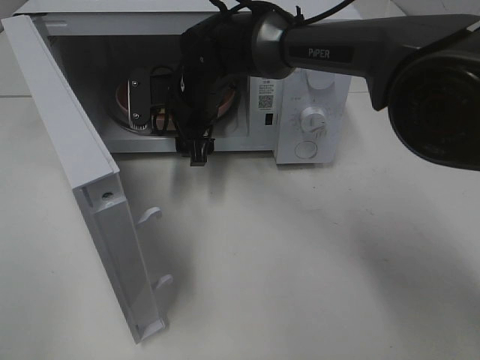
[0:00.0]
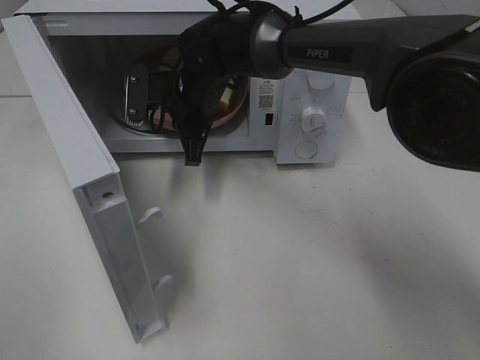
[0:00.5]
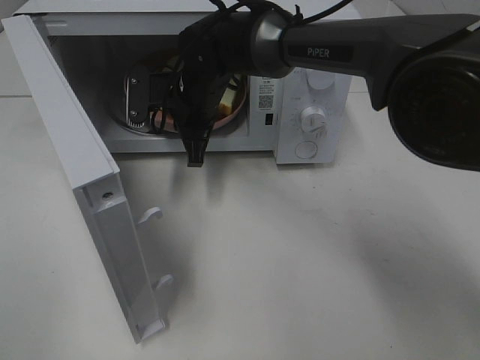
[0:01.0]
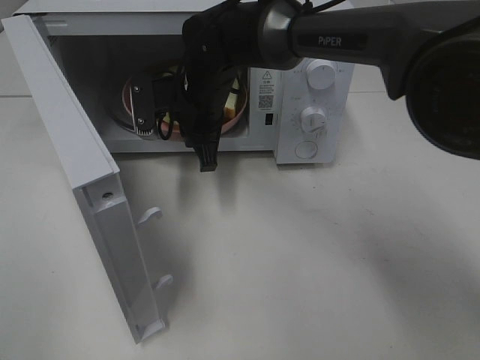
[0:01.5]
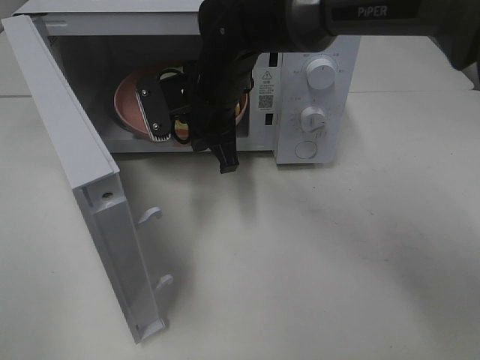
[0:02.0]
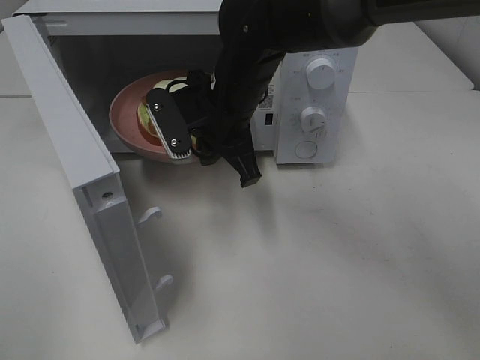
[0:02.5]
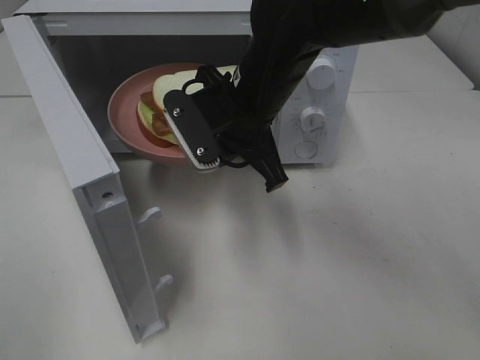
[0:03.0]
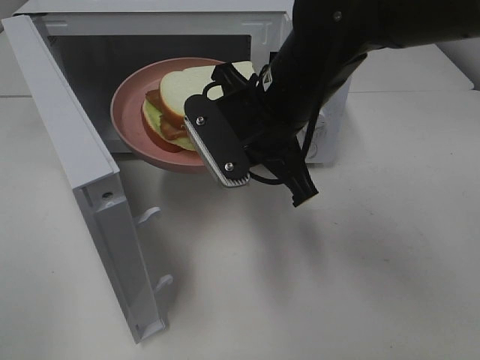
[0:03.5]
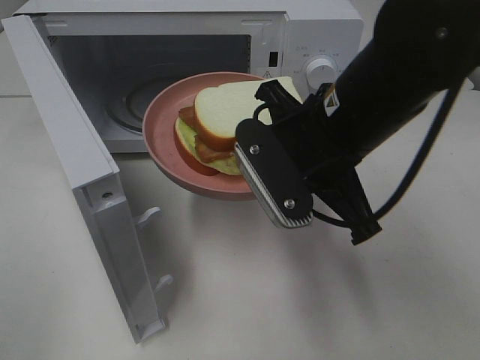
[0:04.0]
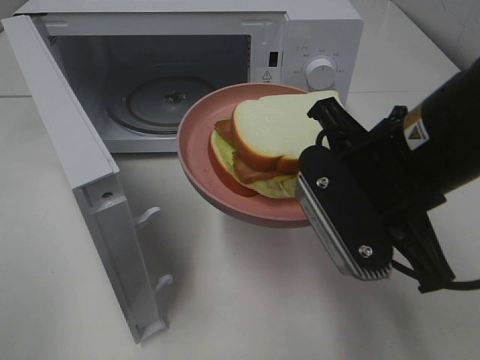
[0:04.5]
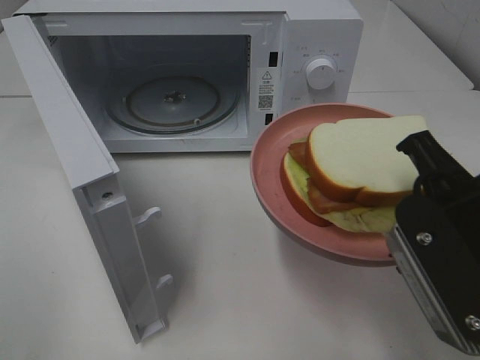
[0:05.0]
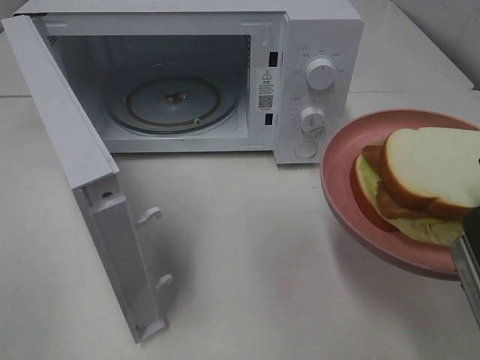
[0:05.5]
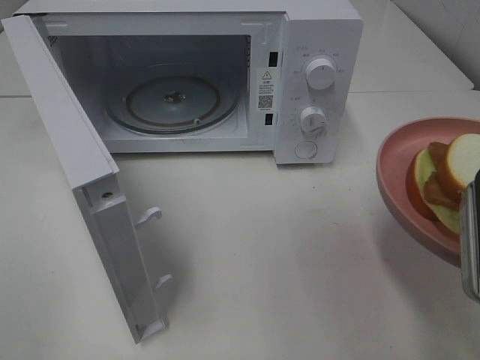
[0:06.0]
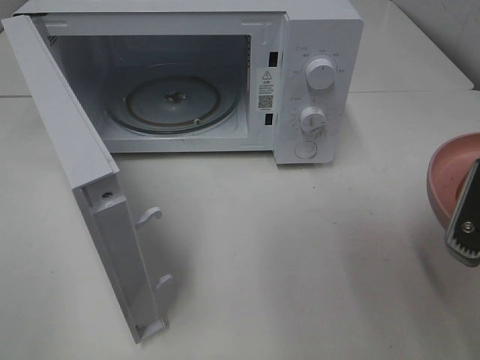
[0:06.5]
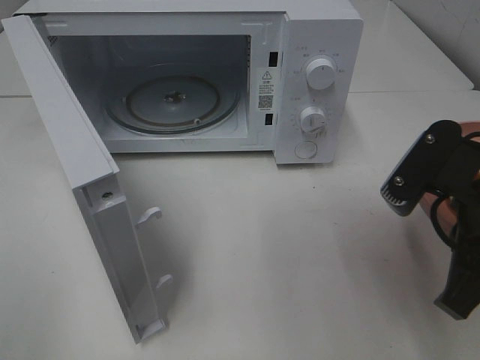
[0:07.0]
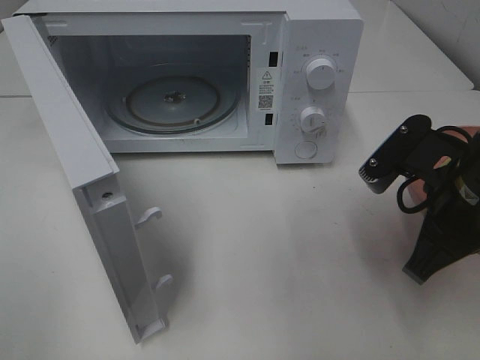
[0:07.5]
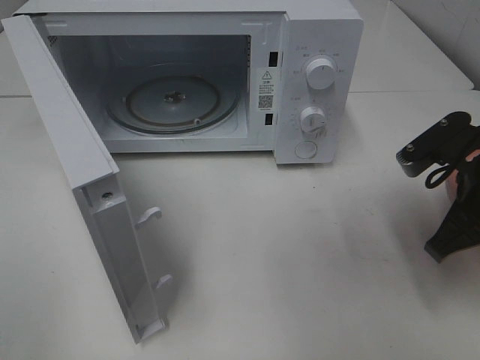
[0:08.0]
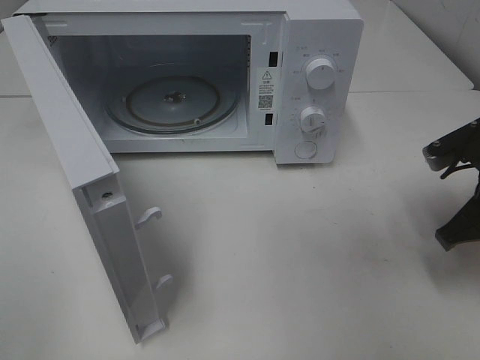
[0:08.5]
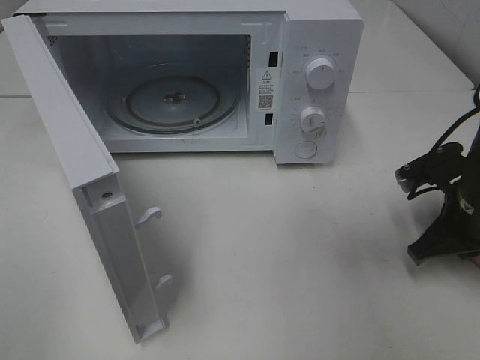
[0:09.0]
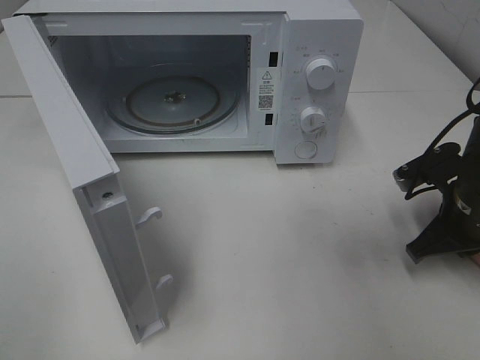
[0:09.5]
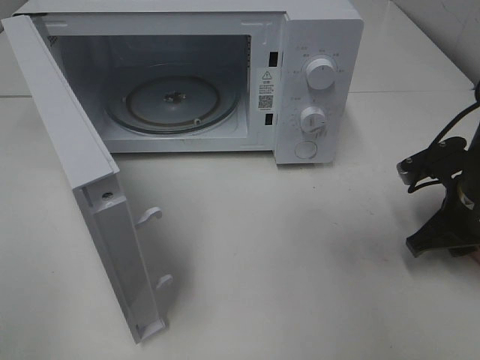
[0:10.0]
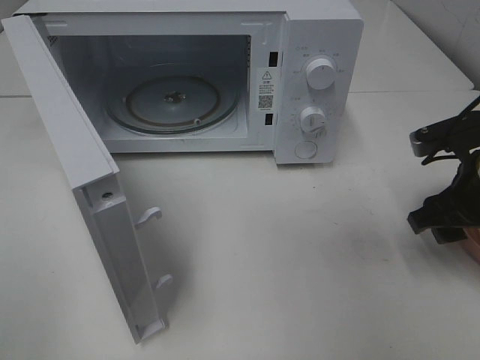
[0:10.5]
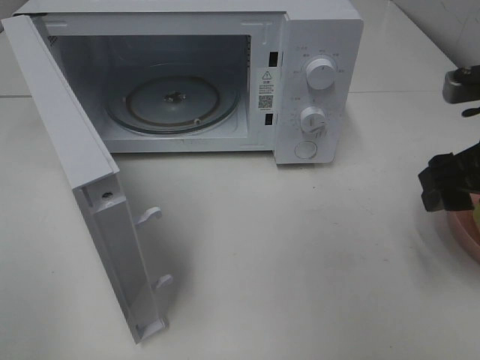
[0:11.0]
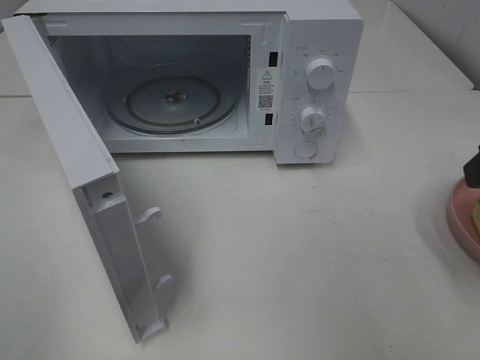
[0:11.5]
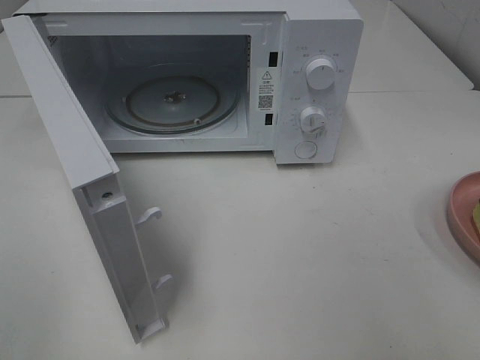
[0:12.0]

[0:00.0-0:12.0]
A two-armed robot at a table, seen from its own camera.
Task of the whole recording: Heat Sandwich.
Step, 0:01.0 to 0:10.5: Right hand: place the plate on the table.
0:00.0 to 0:02.0: The right gripper shifts by some 5 cm, and closes up.
0:02.0 to 0:04.0: The right gripper heads backward and to the right, covering about 20 cm.
0:04.0 to 0:06.0: The right gripper shifts about 20 cm to the right and backward.
0:06.0 to 0:08.0: The right gripper is displaced forward and downward by some 15 cm.
0:08.0 to 0:10.0: The right gripper is displaced downward by some 5 cm, and opens.
0:10.0 to 0:12.0: The right gripper shifts approximately 25 cm upward and backward, and opens up.

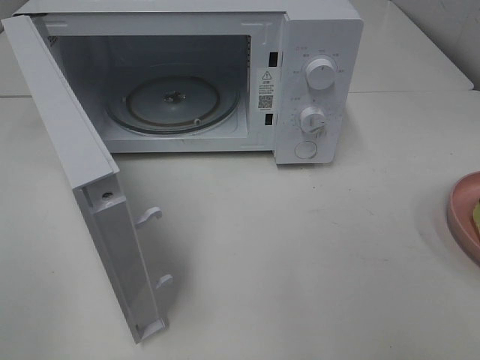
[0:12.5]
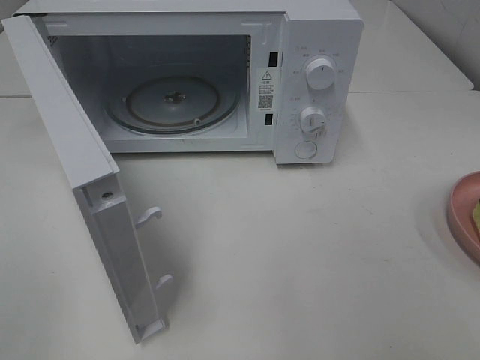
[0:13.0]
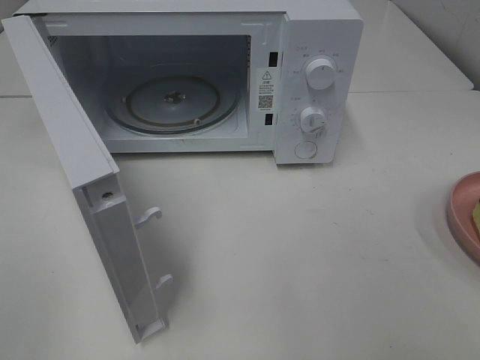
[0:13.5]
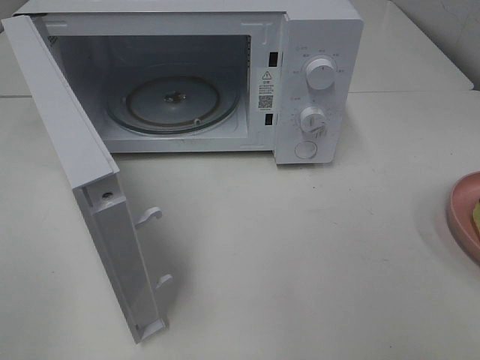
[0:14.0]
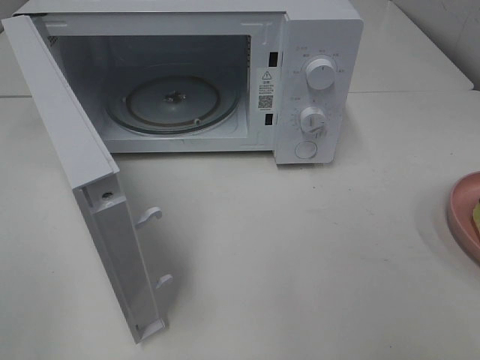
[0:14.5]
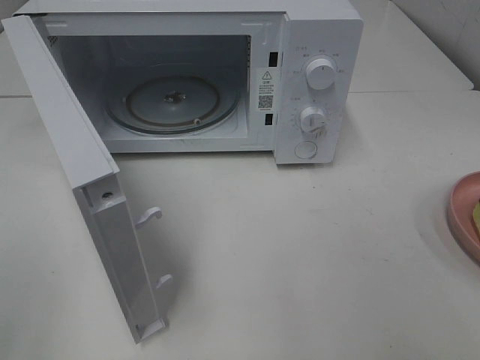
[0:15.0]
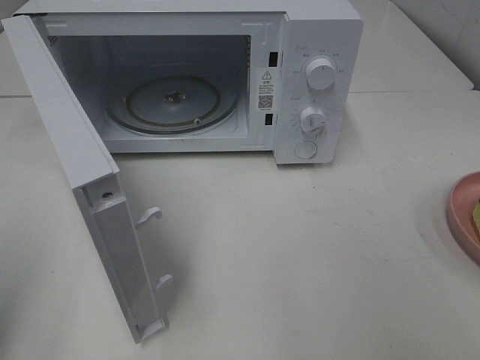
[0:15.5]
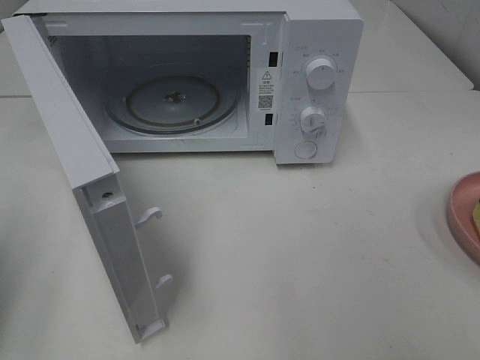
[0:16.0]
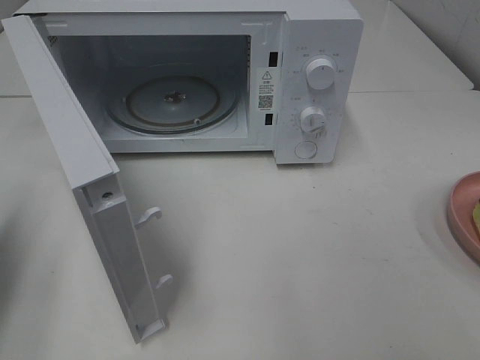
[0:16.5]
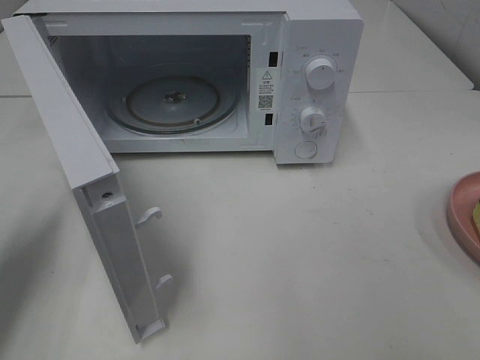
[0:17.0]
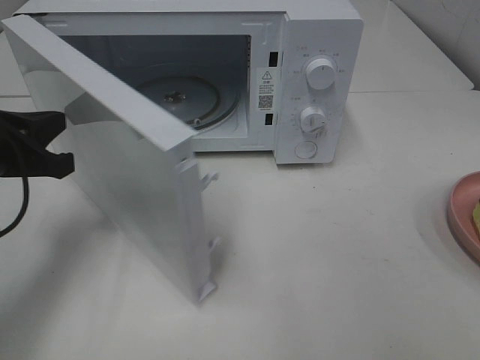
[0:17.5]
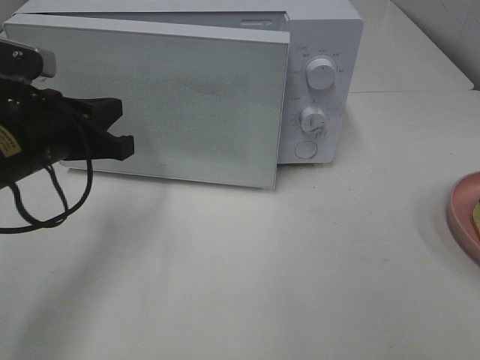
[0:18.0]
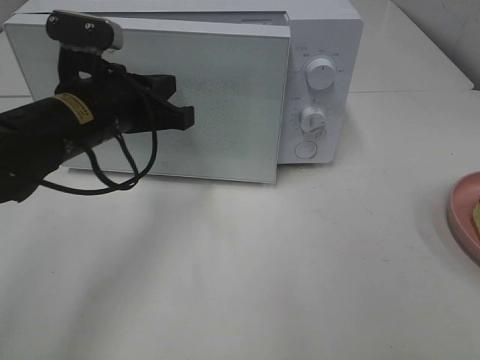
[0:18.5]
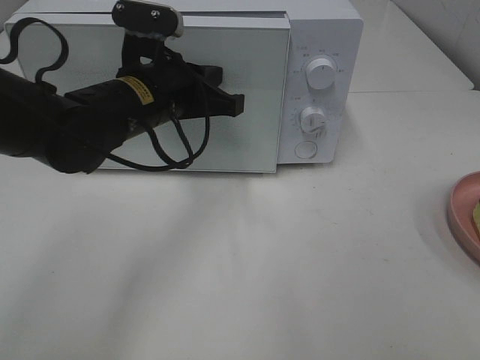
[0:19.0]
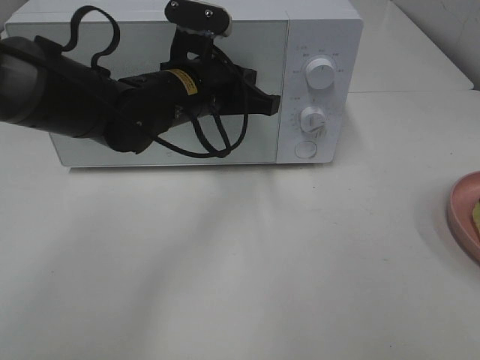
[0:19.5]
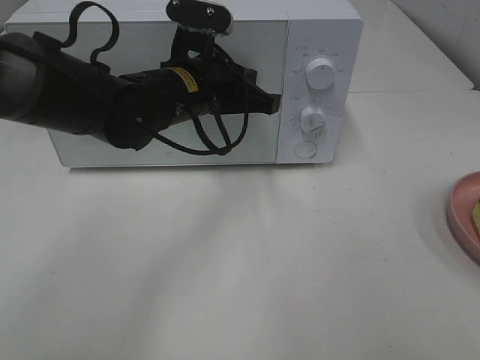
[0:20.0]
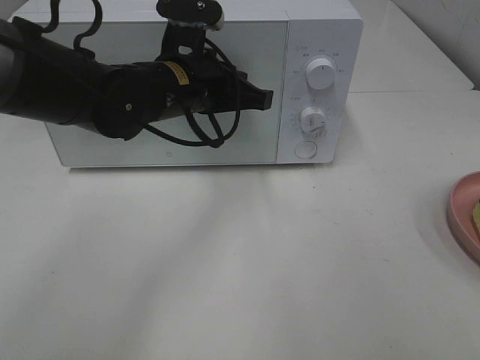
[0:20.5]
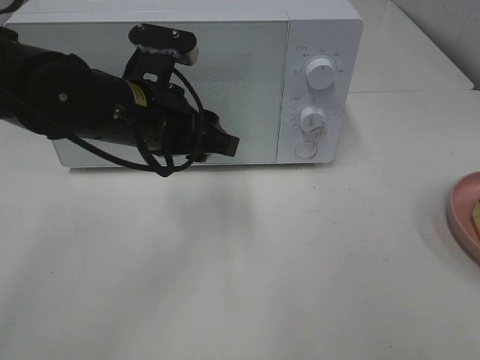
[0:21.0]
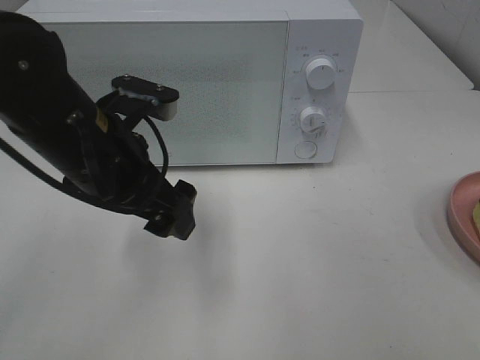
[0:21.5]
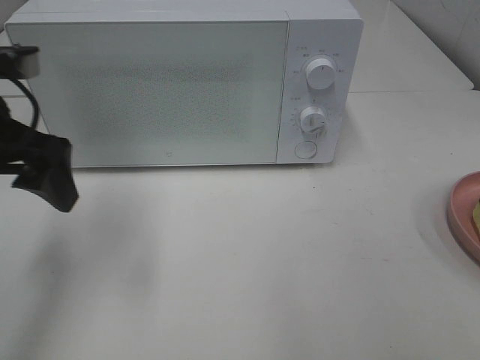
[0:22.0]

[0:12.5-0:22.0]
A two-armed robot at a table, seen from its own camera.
Task of the whole recording: Heat Sandwich.
Step, 0:12.5 to 0:20.0: Left hand: close the microwave door.
0:14.5 to 0:16.5: The left gripper shifts approximately 20 cm forward, and closes.
0:16.5 to 0:18.0: The left gripper is displaced to the right and forward by approximately 15 cm.
0:18.0 to 0:20.0: The left gripper moves to the right and forward, some 15 cm.
0:20.0 to 0:22.0: The left gripper travels to the left and backward by roughly 20 cm, and opens its fingers.

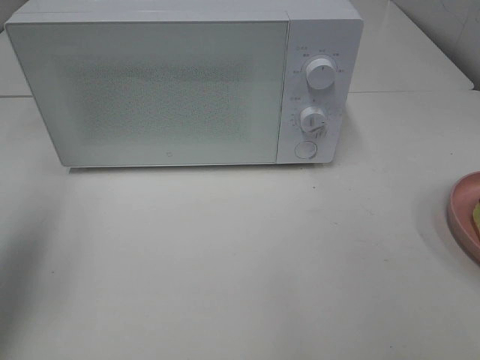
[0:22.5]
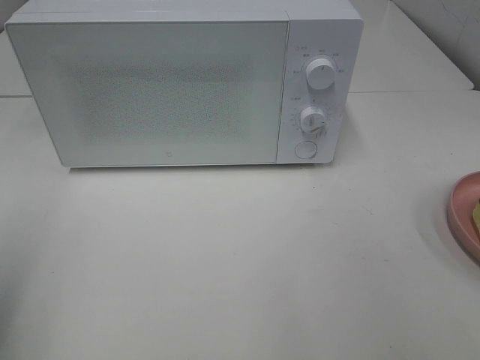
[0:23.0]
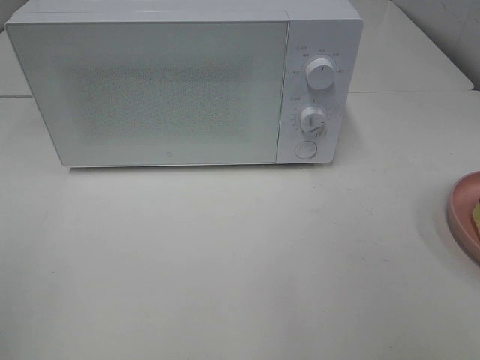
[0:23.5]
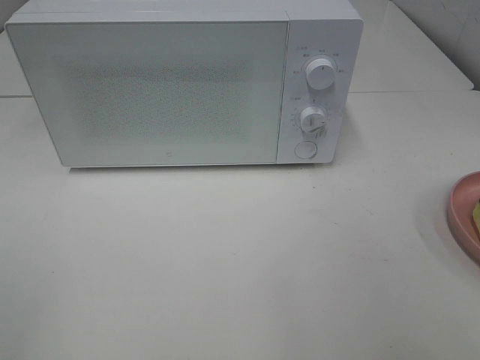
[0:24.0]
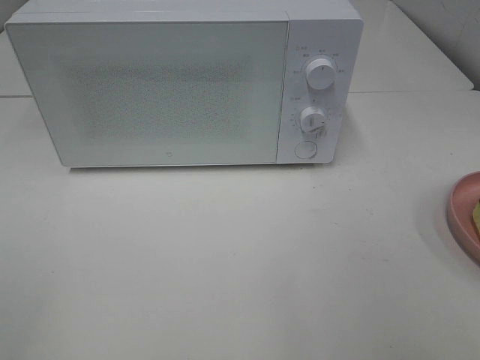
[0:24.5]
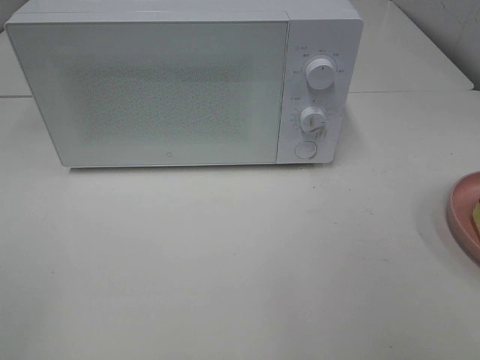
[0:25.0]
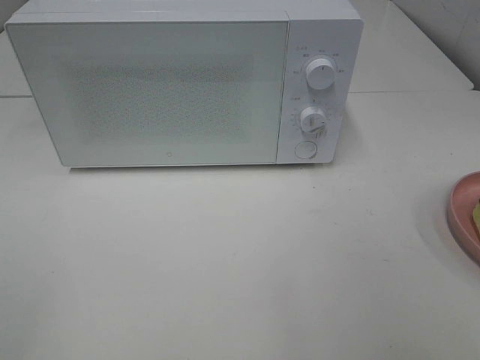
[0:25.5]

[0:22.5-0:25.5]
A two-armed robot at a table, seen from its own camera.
Task of the whole recording: Heat Sandwich.
0:22.5 to 0:24.0: The left gripper is displaced backward by roughly 20 cm.
0:24.0 to 0:25.5: Neither gripper changes place.

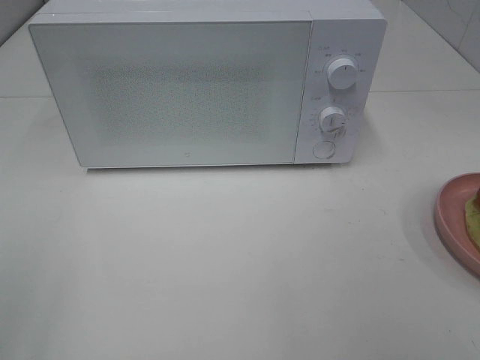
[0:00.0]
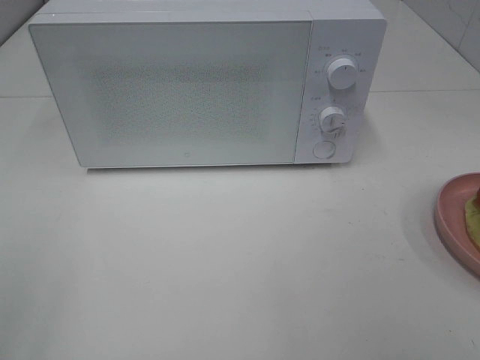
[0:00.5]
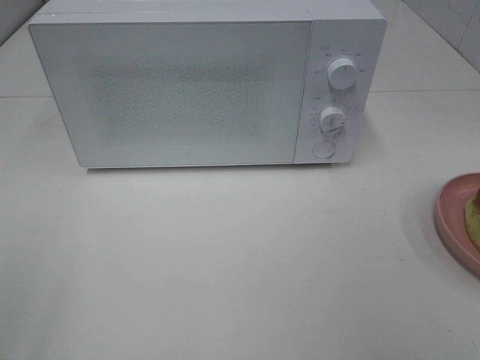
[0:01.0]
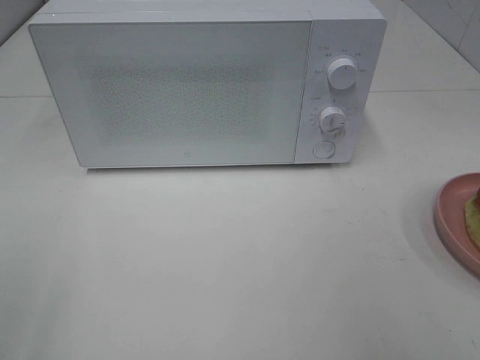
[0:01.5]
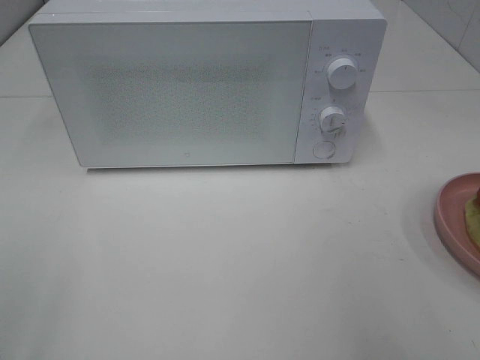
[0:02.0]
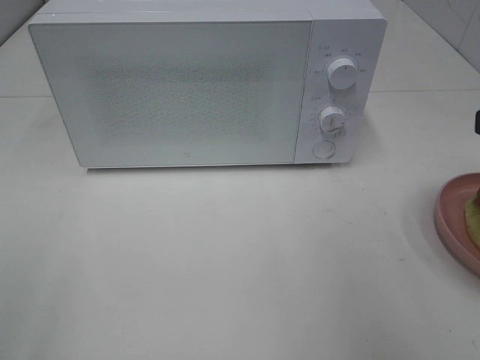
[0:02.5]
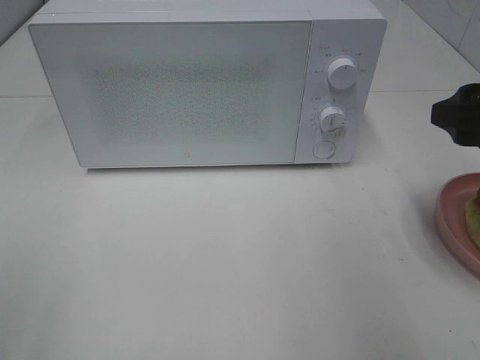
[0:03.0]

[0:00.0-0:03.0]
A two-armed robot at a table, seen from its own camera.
Task of the whole recording: Heat Sandwich.
0:01.5 to 0:03.0: The right gripper shifts about 15 cm forward.
